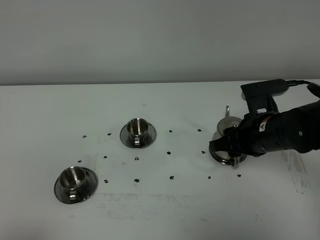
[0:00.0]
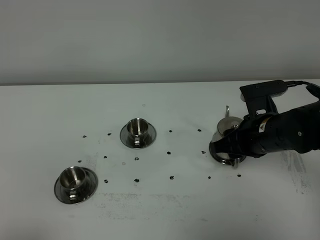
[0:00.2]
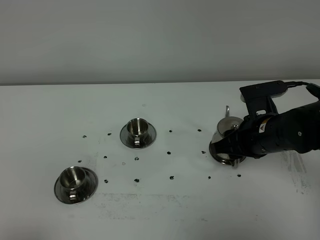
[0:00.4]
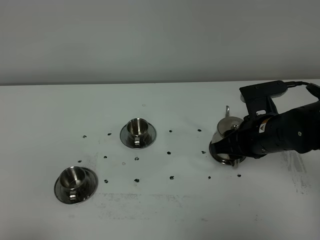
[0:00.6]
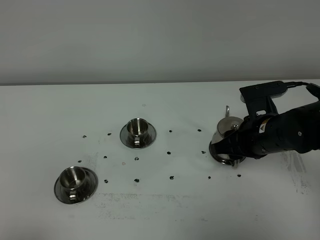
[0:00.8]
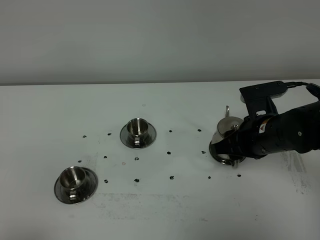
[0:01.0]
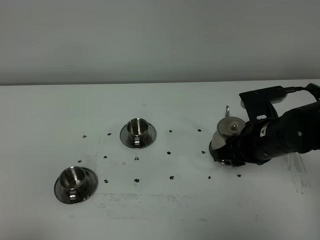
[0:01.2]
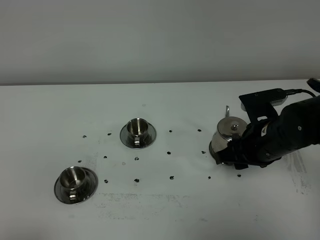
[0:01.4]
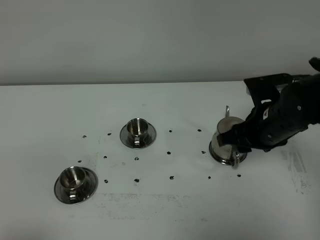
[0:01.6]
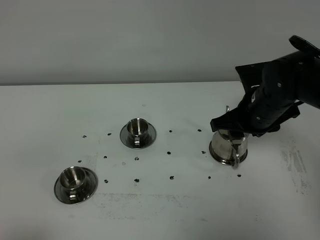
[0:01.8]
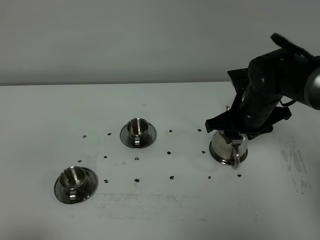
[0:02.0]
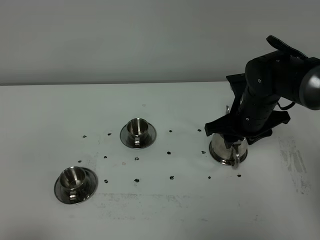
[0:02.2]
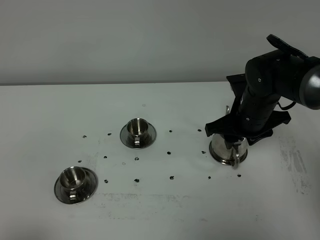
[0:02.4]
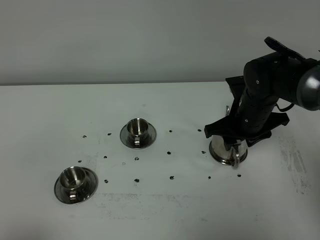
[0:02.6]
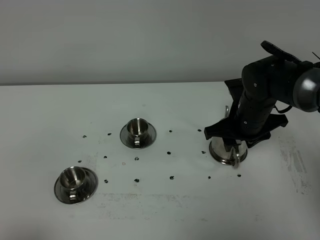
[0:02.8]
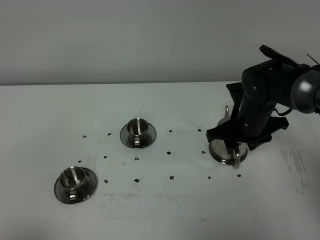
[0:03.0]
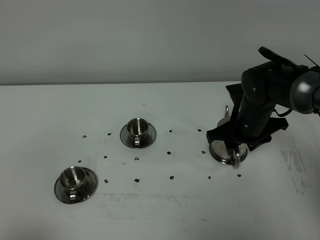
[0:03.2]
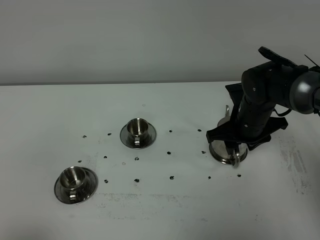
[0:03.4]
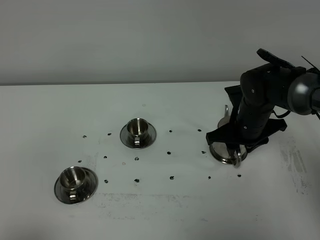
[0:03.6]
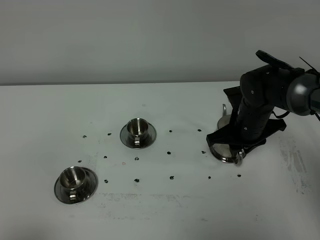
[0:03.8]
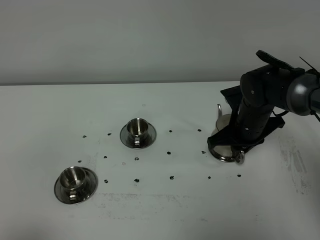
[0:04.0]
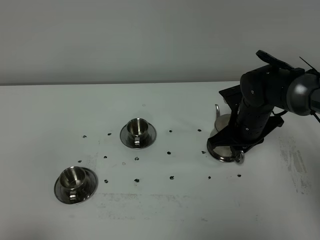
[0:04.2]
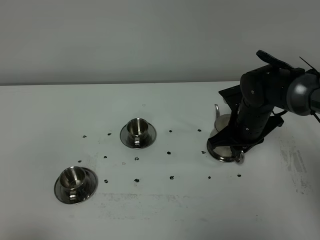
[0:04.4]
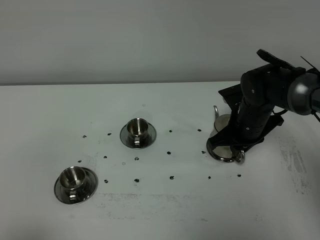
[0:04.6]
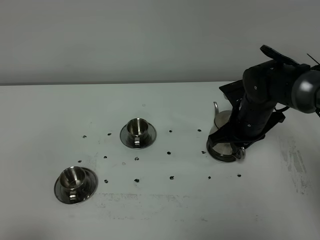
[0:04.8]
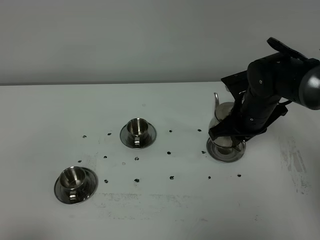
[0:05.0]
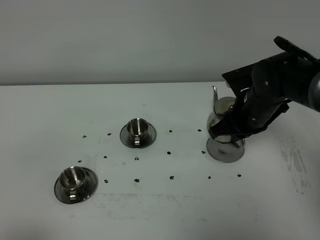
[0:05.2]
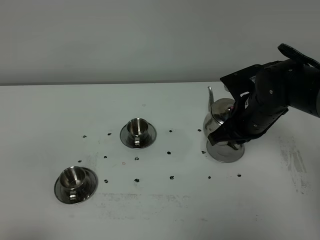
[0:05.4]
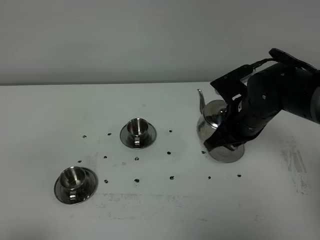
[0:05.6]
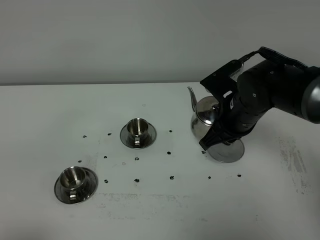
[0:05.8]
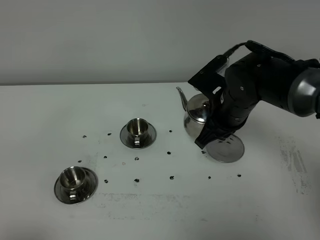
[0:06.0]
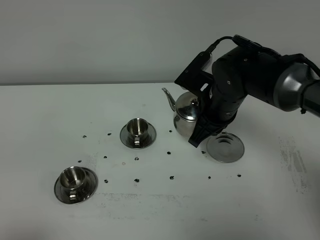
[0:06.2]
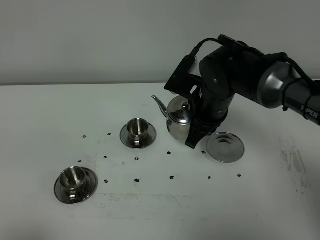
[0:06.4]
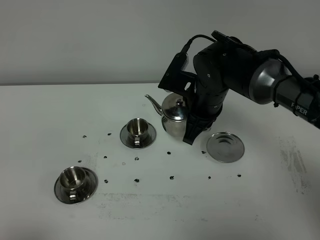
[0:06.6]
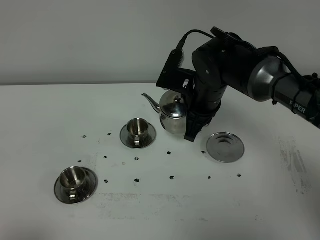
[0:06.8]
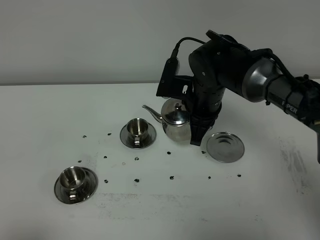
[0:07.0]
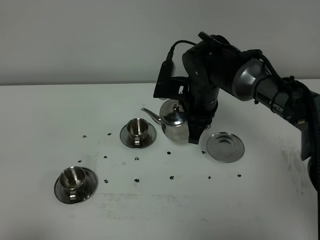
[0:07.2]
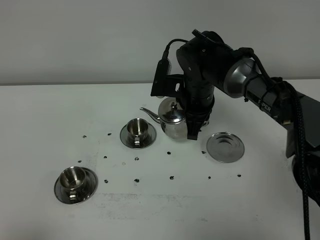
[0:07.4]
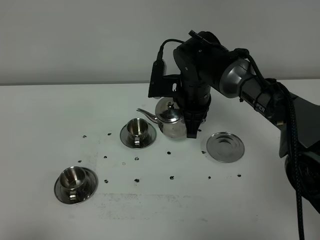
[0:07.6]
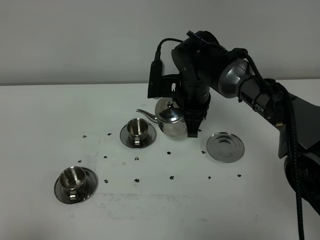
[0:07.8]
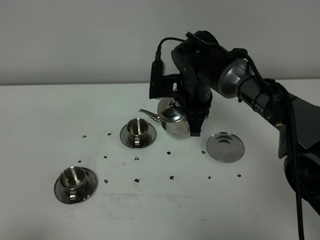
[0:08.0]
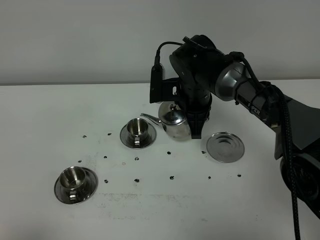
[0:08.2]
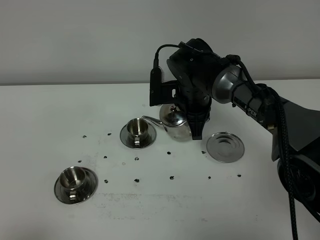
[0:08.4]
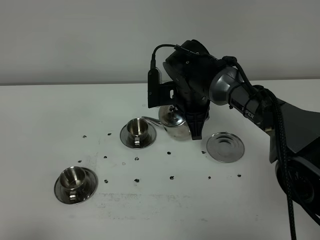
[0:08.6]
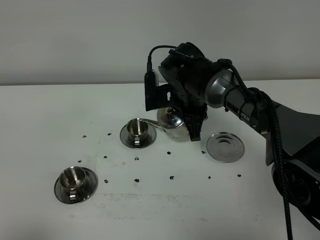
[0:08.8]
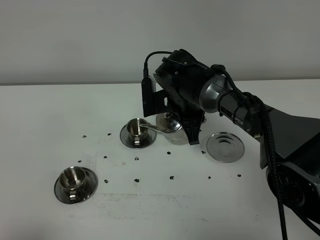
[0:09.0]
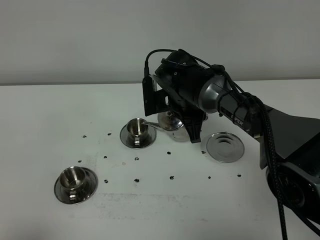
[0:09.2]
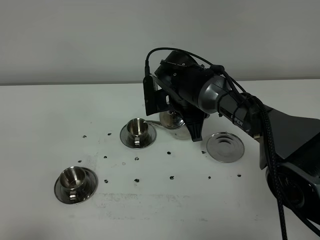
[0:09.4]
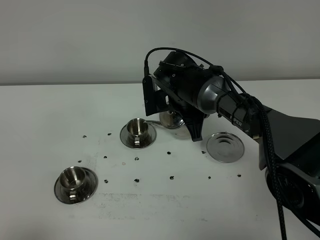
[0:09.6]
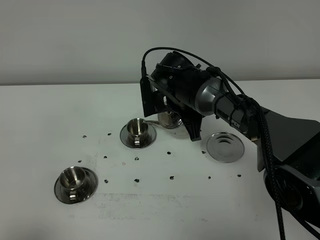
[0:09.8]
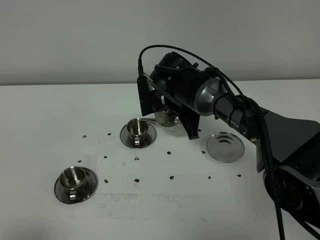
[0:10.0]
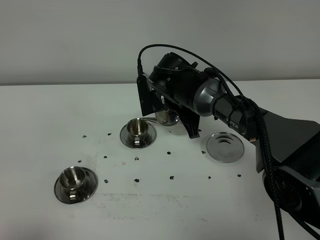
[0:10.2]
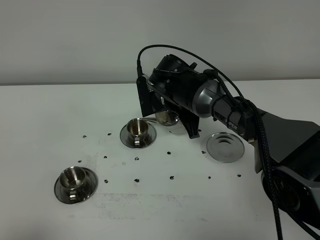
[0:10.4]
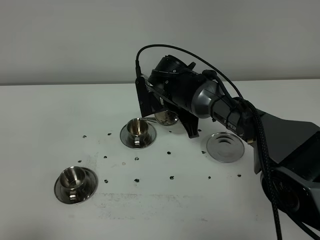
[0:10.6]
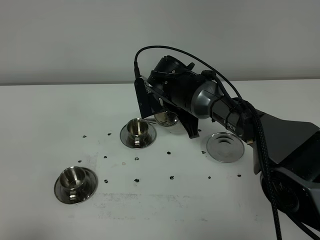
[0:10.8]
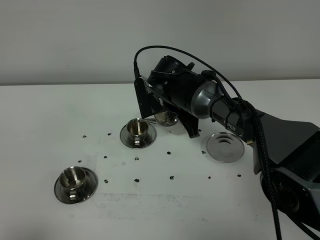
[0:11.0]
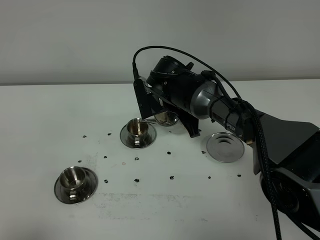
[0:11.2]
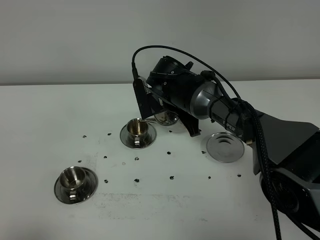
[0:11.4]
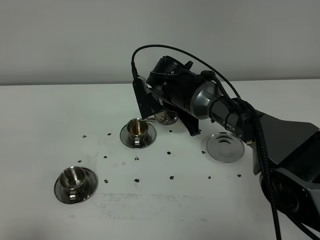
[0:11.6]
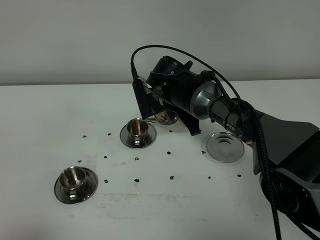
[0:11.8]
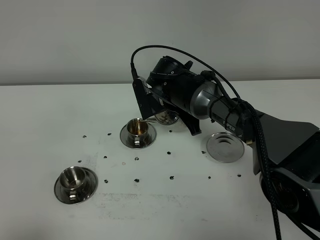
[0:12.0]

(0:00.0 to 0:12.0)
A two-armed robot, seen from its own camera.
Task of the whole recording: grasp the stainless steel teapot and pour the tea into the two stainless steel teacups one by one, put the stainless steel teapot back in its original place.
Step, 0:00.0 - 0:04.8: Pick up the teapot with the right gripper.
0:00.0 - 0:01.6: The grippers stay close to where they were, moving slightly.
0:01.6 - 0:03.0: The right gripper is displaced forward and downward by roughly 10 cm.
0:03.0 - 0:04.4: The right gripper closes.
0:04.4 - 0:06.0: The right gripper goes approximately 5 cm upward.
0:06.0 - 0:07.6: The right gripper goes roughly 10 cm forward and to the left.
0:07.6 - 0:09.0: The grippers stay close to where they were, moving slightly.
0:09.0 - 0:12.0: The grippers make only small movements.

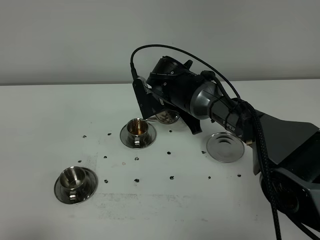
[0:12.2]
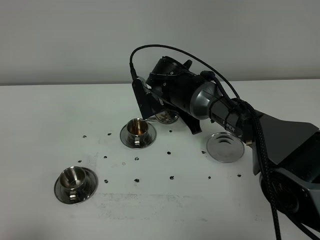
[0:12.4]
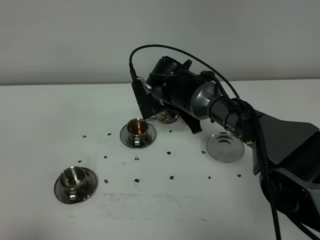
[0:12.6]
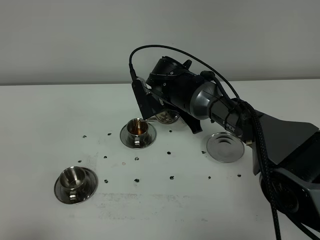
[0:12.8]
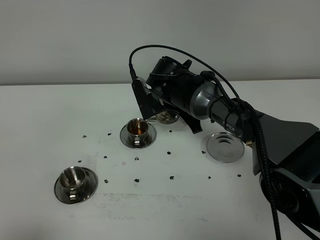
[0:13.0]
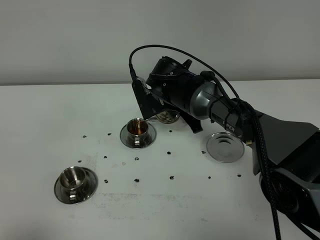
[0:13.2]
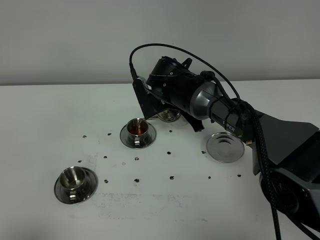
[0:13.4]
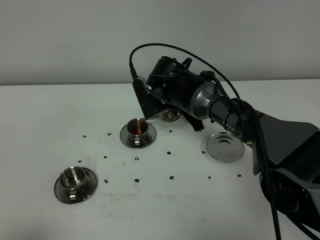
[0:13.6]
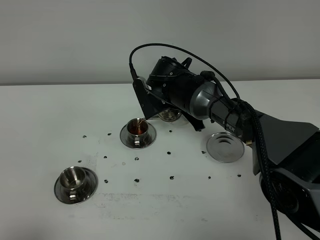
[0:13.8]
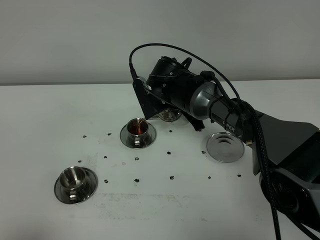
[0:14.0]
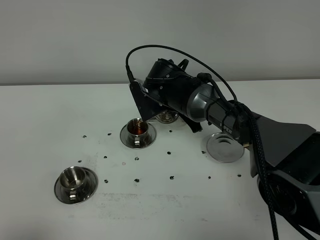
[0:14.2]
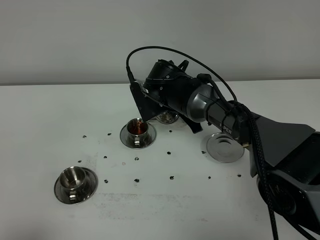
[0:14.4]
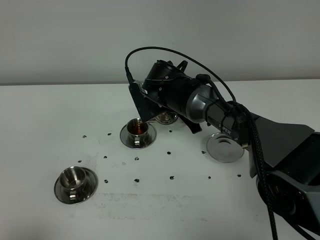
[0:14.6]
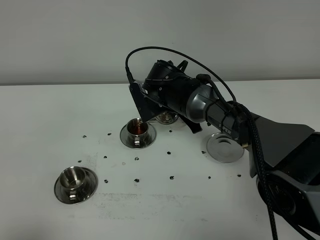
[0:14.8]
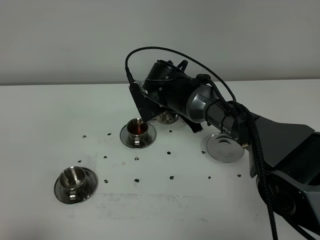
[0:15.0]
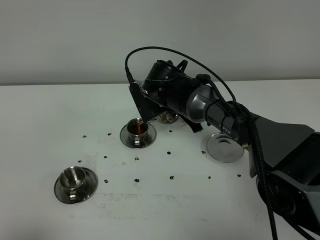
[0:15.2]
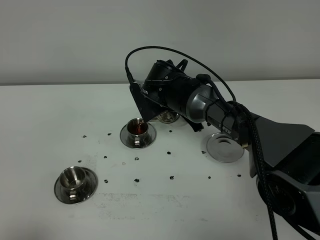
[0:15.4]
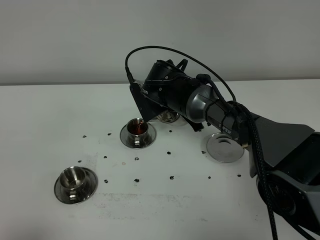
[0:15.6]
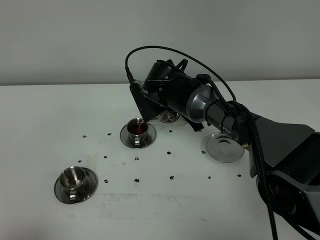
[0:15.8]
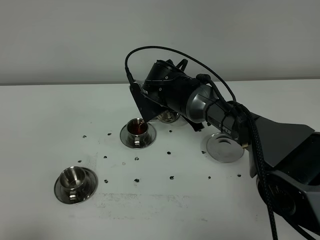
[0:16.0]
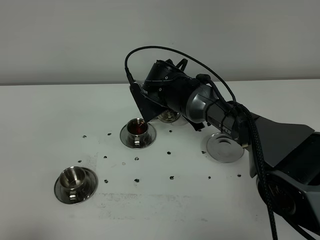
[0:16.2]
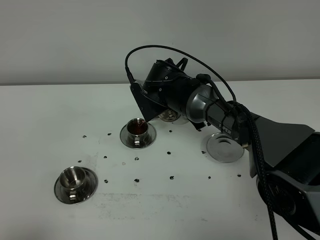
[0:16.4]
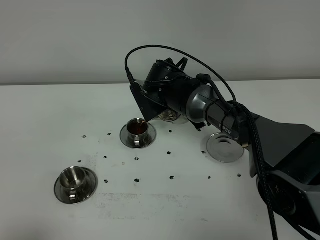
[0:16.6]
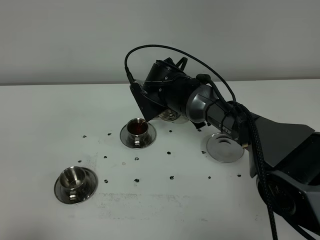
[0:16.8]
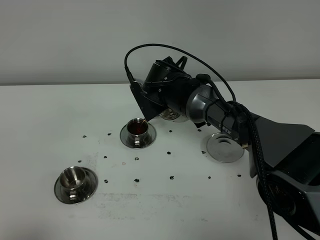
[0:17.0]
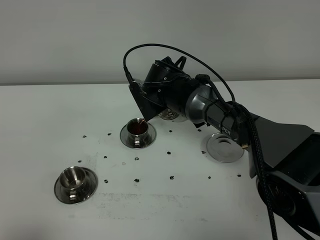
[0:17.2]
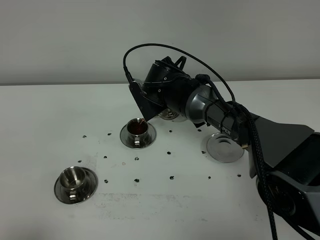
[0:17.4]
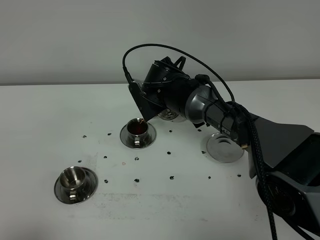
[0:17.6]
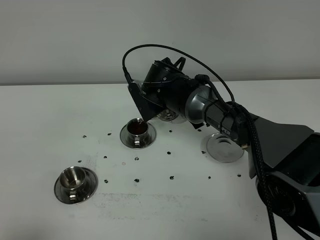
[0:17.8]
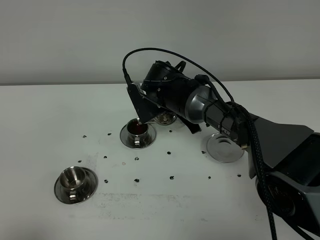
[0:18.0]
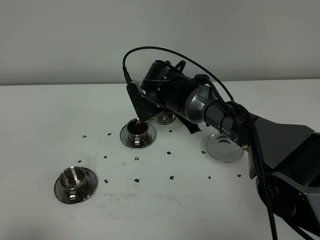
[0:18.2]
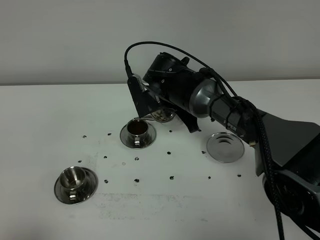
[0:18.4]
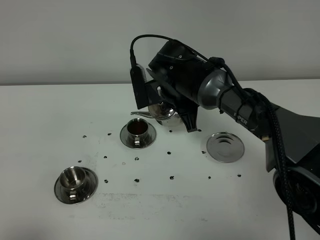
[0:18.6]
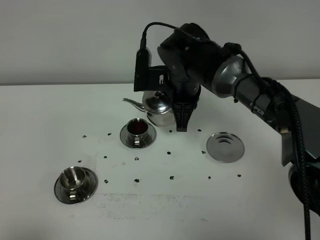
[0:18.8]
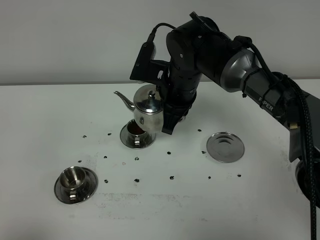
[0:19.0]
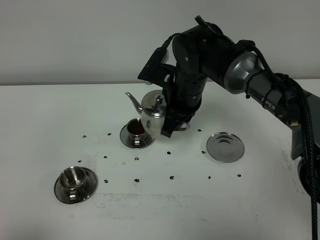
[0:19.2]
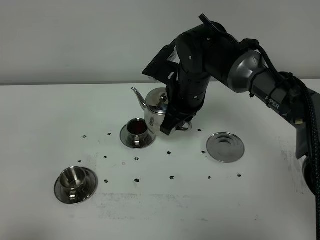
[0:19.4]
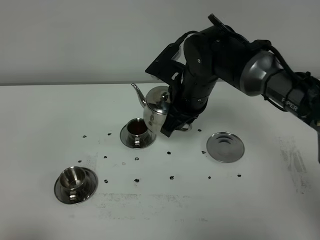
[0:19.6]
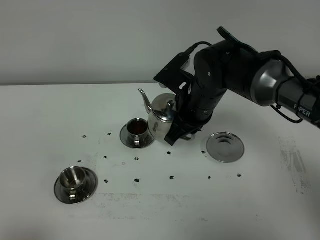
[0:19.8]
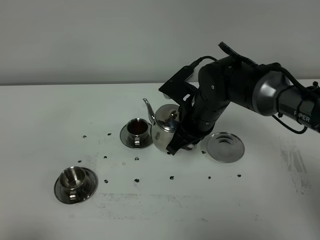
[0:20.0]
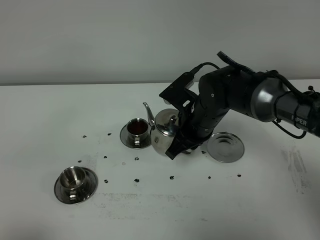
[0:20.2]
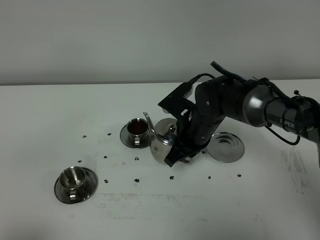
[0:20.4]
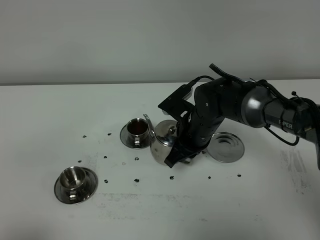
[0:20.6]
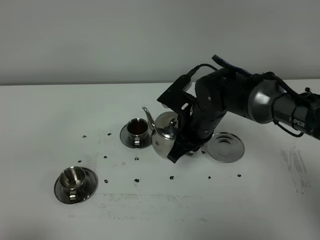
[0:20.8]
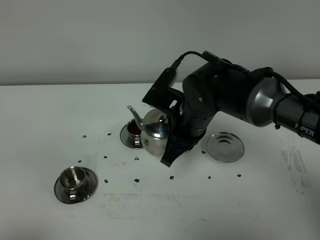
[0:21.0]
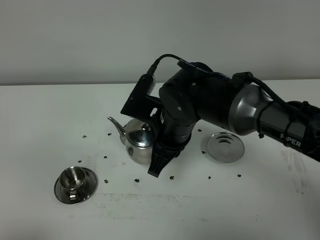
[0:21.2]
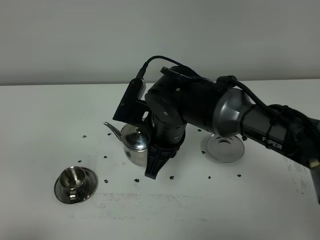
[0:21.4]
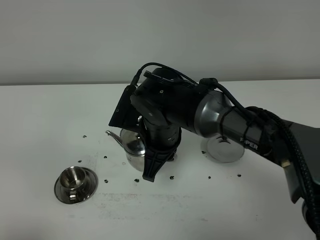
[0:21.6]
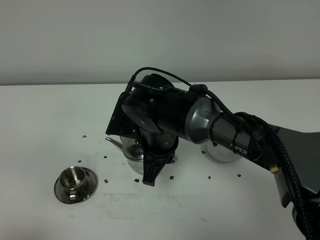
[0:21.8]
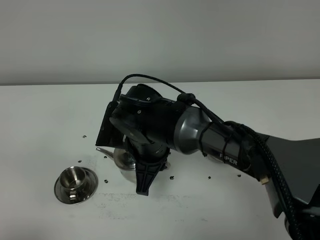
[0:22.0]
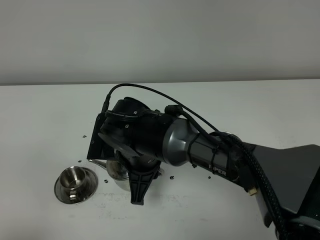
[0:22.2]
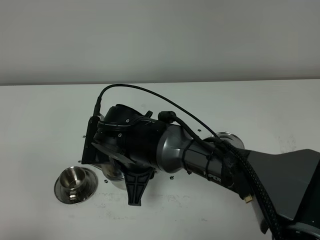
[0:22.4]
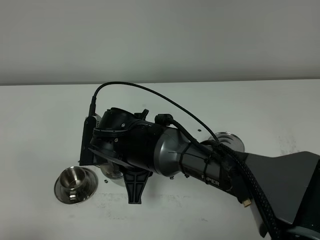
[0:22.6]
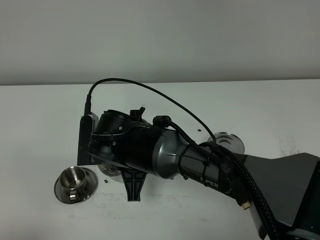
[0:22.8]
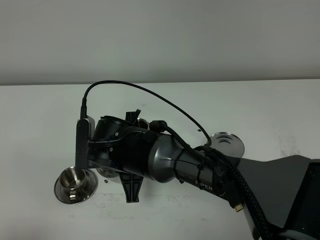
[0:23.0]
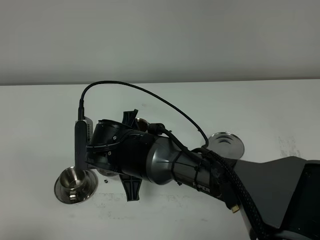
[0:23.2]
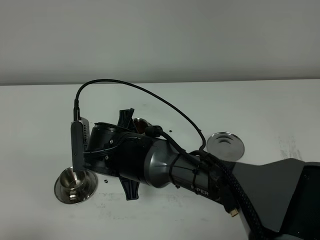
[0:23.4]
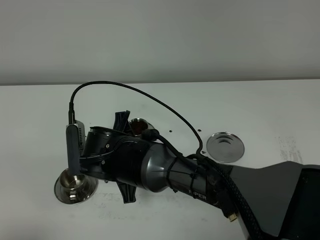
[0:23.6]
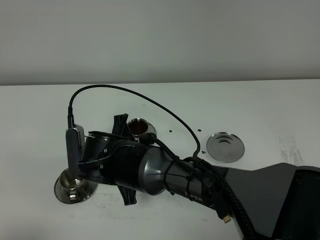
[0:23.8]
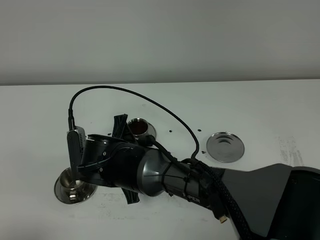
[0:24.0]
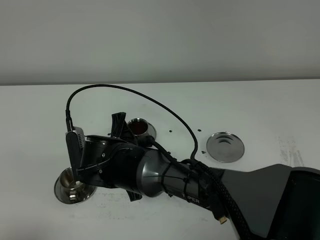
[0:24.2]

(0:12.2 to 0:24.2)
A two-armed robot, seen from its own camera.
Task of the whole recording: grasp the stainless steel teapot and pour the tea into the two stainless steel teacups one by one, put the stainless steel teapot back in its original place.
Step, 0:12.2 - 0:18.6: Pour tea into the teacup with the right gripper.
0:12.2 - 0:13.8: Neither gripper changes place.
0:13.8 - 0:16.6: The two grippers keep their place.
0:16.6 - 0:18.2: Both grippers stay about where they are.
0:18.2 - 0:19.8: The right gripper shifts roughly 5 cm backward.
0:19.8 - 0:21.2: The right gripper goes roughly 10 cm to the left and backward.
0:21.2 - 0:22.6: The right gripper heads to the left, covering roughly 10 cm.
0:22.6 - 0:24.2: The grippers move only a little.
